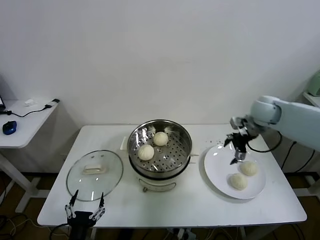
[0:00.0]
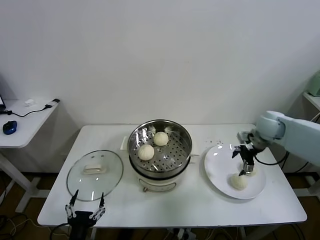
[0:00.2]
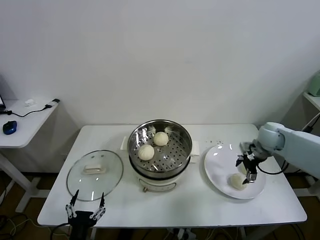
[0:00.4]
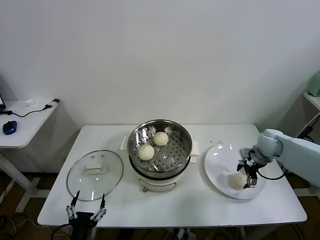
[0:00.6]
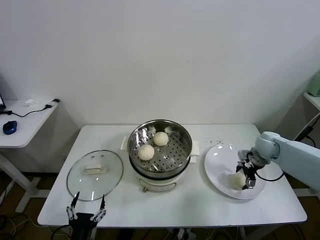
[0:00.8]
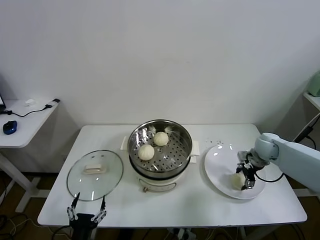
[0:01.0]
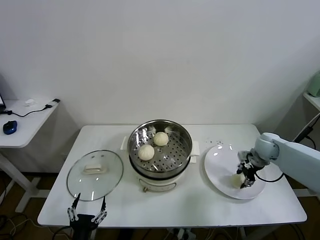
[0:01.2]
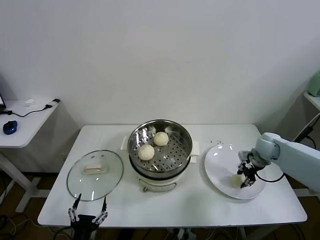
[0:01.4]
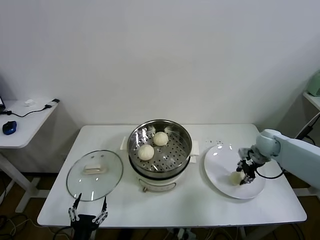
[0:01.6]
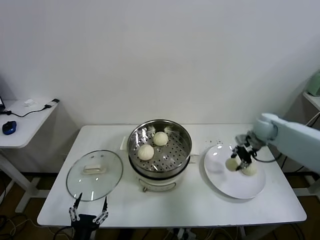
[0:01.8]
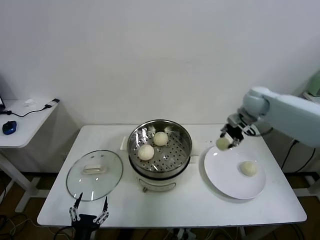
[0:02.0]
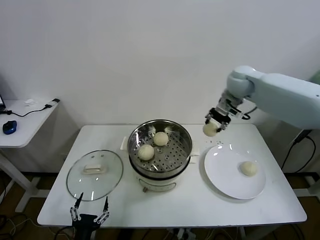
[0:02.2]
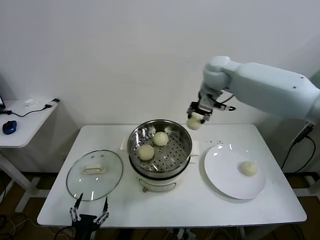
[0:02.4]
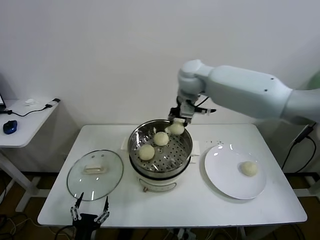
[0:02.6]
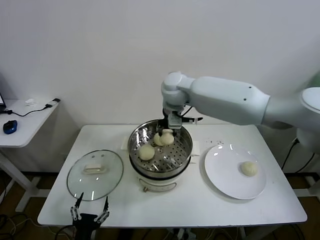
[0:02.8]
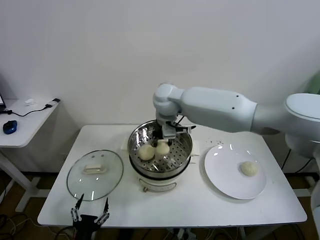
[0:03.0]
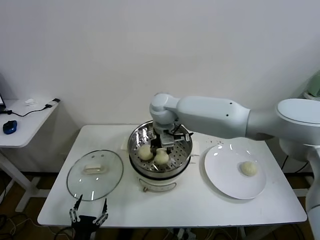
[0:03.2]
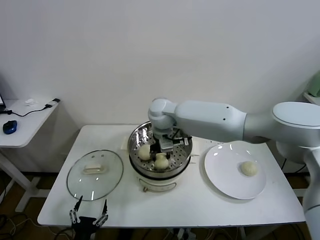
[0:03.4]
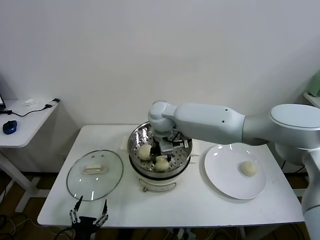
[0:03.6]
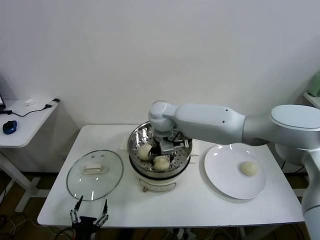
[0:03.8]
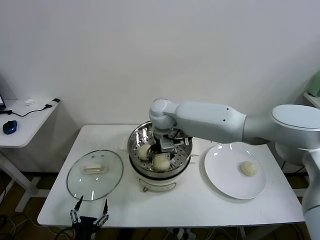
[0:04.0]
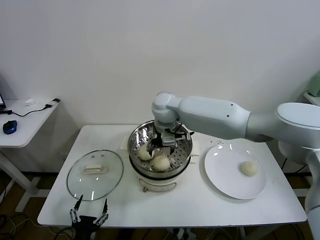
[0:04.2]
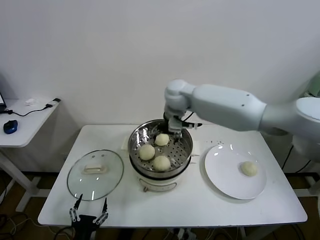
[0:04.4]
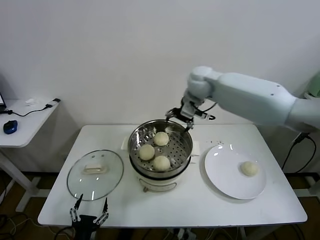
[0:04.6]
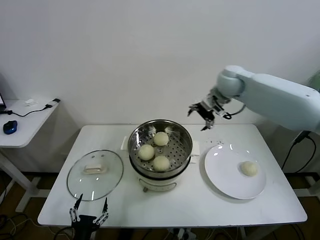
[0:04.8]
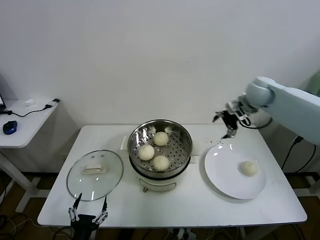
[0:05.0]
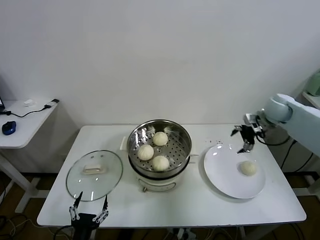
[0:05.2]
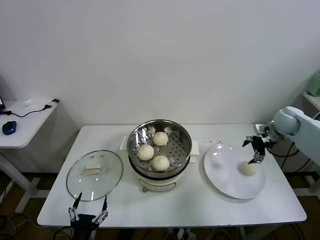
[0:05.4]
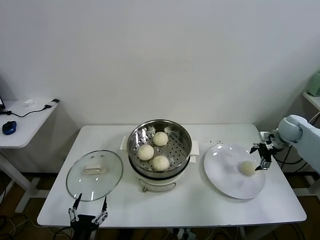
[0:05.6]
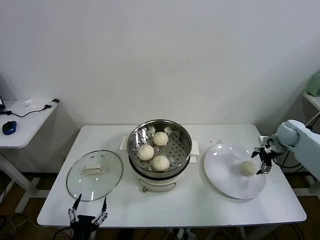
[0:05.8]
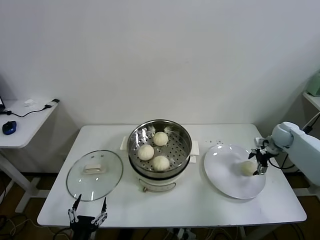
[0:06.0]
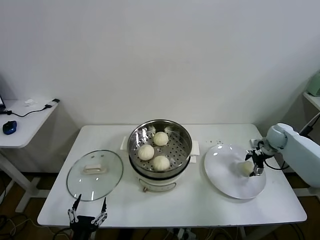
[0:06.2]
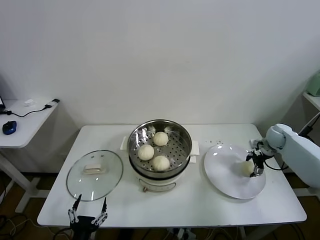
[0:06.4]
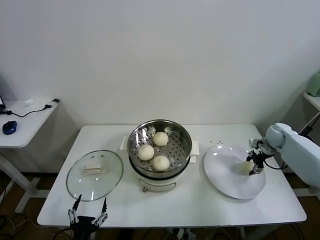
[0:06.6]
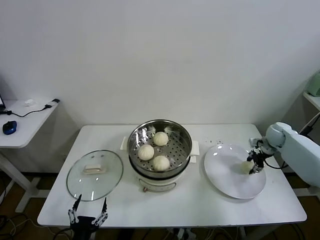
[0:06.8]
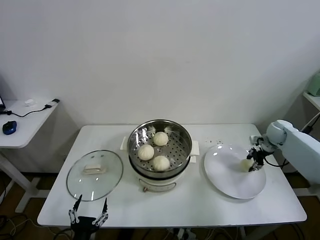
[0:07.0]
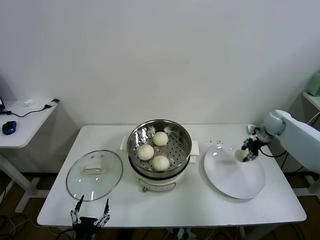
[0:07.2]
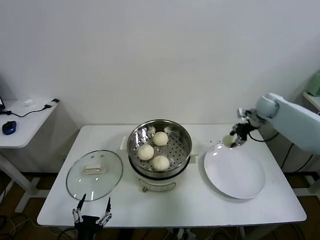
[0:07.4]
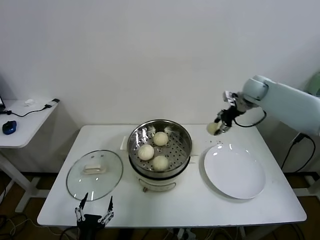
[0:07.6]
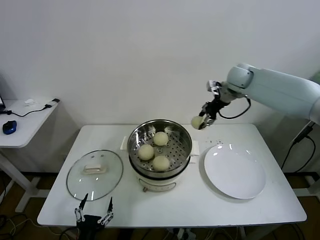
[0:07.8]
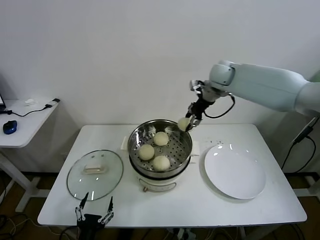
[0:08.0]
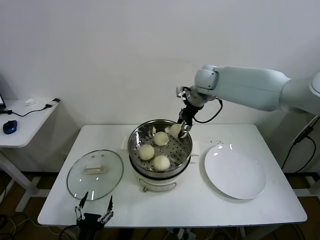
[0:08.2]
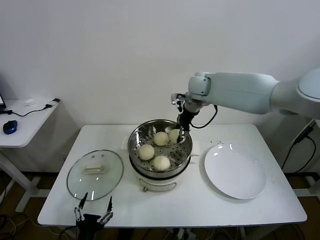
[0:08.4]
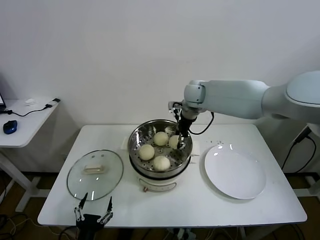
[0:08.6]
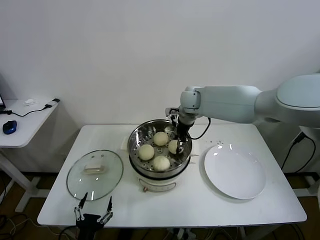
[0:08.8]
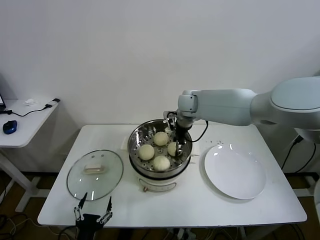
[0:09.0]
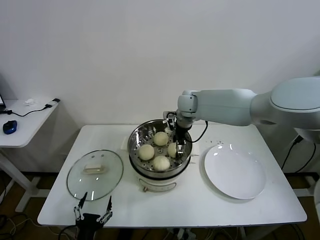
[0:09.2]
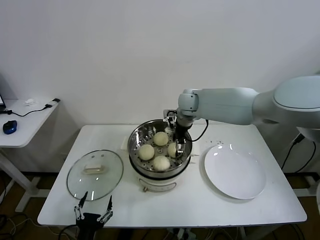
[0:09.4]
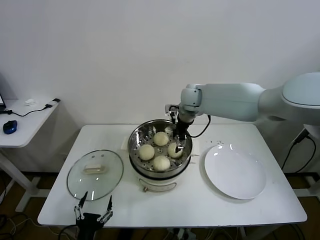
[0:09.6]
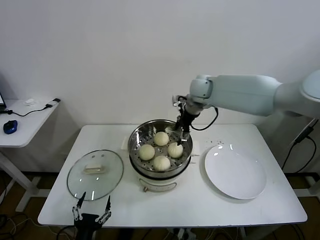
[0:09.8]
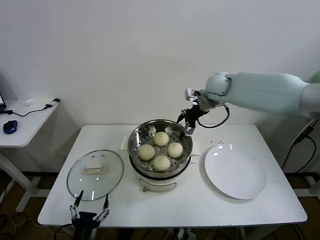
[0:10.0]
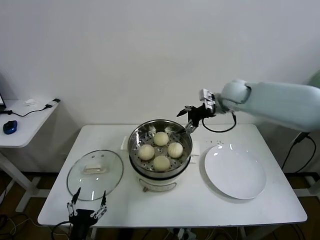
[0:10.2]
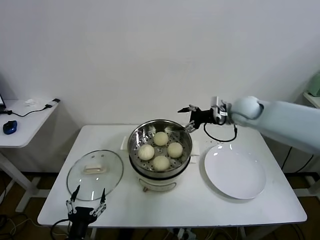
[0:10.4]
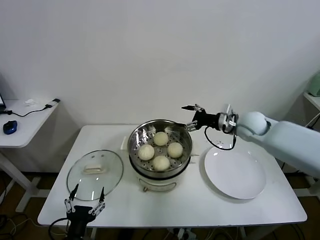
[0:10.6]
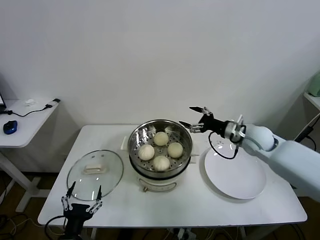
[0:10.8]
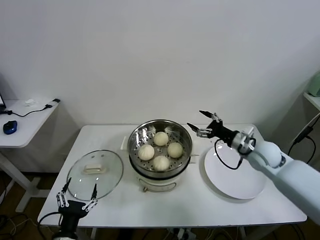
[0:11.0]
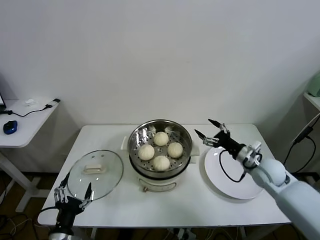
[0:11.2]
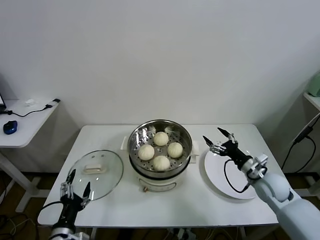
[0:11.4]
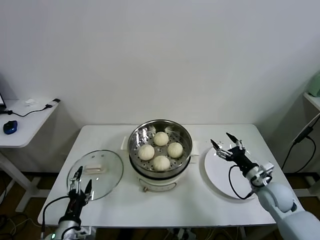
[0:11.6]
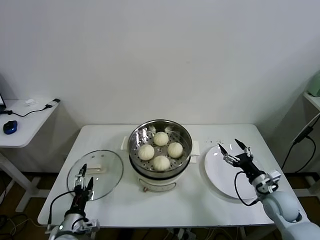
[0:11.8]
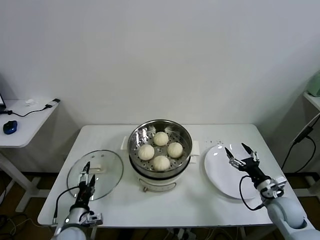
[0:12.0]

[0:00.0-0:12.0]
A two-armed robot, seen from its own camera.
Task of the whole recording: take steamed baozi put them in steamer.
Step, 0:00.0 to 0:01.2: Grasp the baozi in the plate with right gripper.
Step, 0:01.4 to 0:04.2: Place the baozi on the steamer with right gripper.
Step, 0:04.4 to 0:06.8: Grasp the baozi in the plate with right gripper.
Step, 0:07.0 to 0:09.4: Place the baozi on the steamer with right gripper.
0:00.0 to 0:01.6: The right gripper goes about 10 cm downward, and closes up.
0:01.6 to 0:03.0: The right gripper is displaced to the left and upward by roughly 40 cm.
0:03.0 to 0:04.4: The right gripper ends up roughly 5 cm from where it was, and opens.
0:04.4 to 0:06.0: The right gripper moves to the right and downward, roughly 50 cm.
0:06.0 to 0:07.6: The right gripper moves upward, to the left and forward, about 25 cm, and closes up.
0:07.6 to 0:09.0: The right gripper is displaced to the left by about 25 cm.
0:09.0 to 0:10.4: The right gripper goes roughly 20 cm to the right, and opens.
0:10.4 to 0:12.0: The right gripper shifts some 35 cm downward, backward and to the right. The left gripper heads forward and downward, covering about 10 cm.

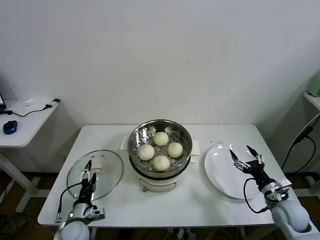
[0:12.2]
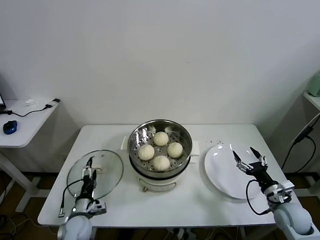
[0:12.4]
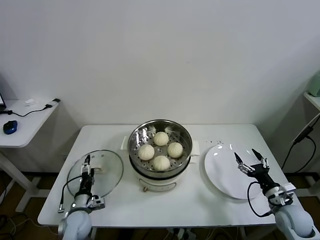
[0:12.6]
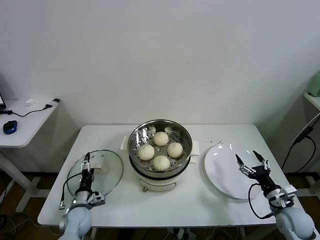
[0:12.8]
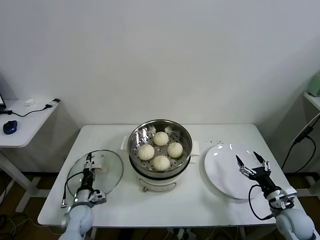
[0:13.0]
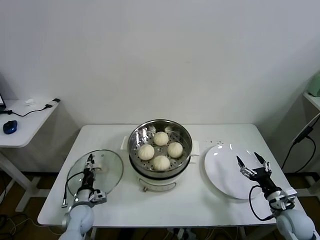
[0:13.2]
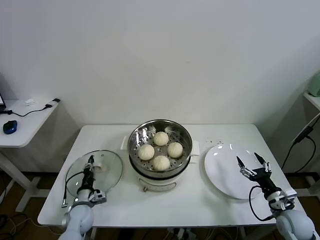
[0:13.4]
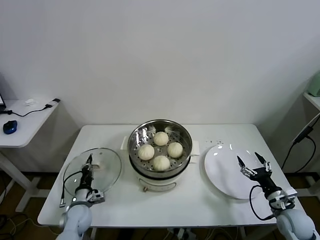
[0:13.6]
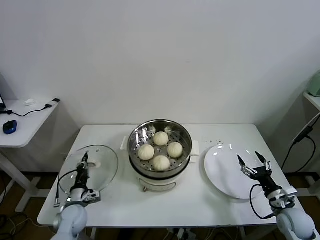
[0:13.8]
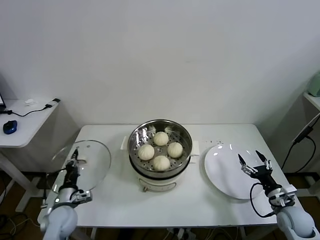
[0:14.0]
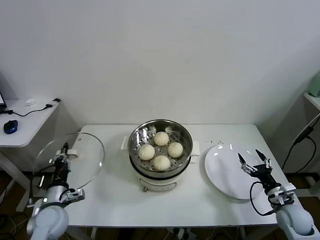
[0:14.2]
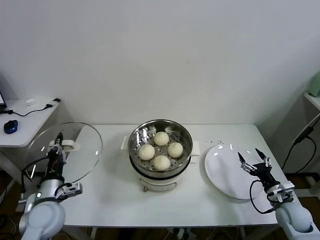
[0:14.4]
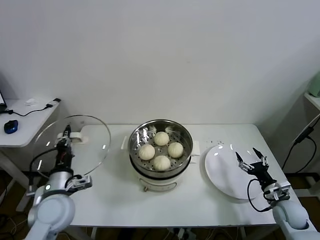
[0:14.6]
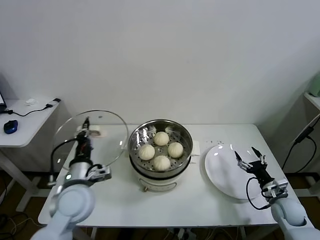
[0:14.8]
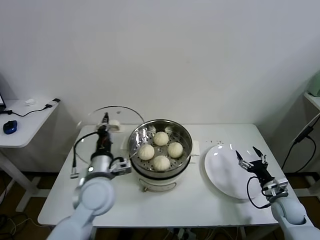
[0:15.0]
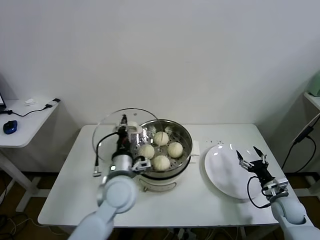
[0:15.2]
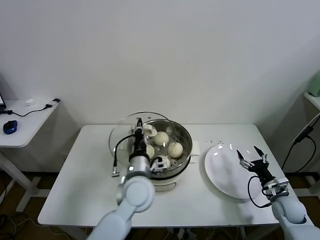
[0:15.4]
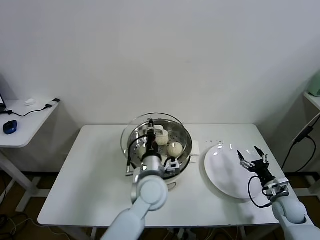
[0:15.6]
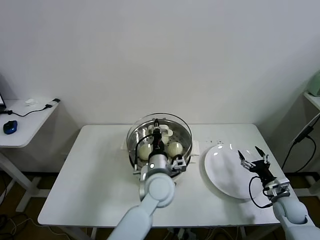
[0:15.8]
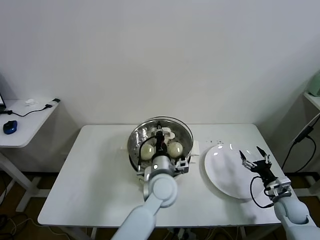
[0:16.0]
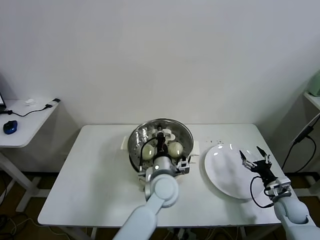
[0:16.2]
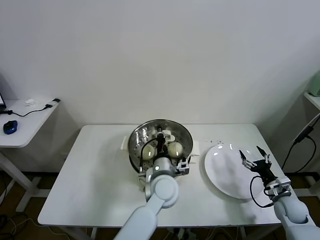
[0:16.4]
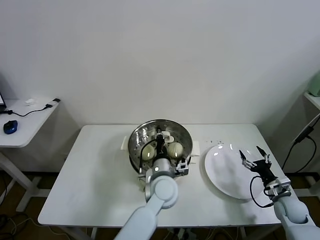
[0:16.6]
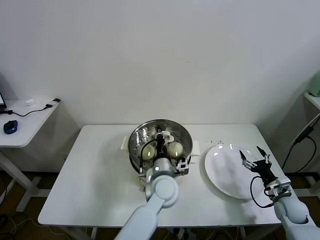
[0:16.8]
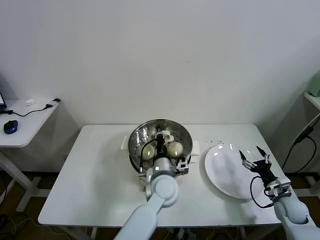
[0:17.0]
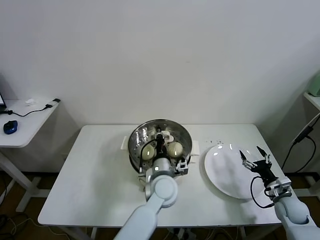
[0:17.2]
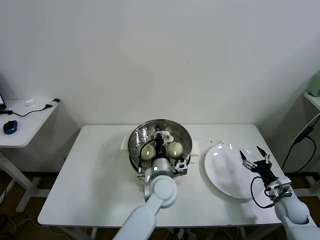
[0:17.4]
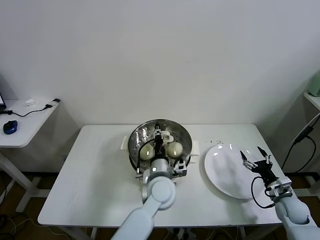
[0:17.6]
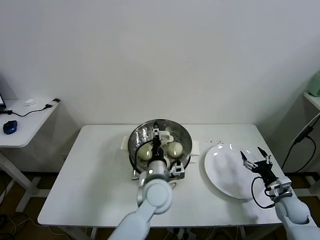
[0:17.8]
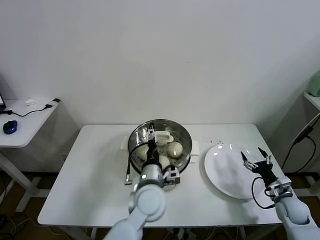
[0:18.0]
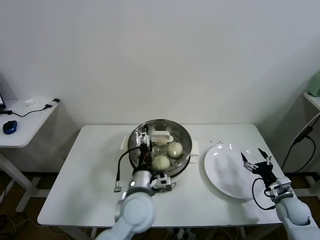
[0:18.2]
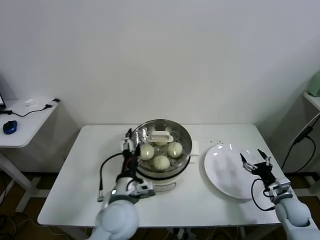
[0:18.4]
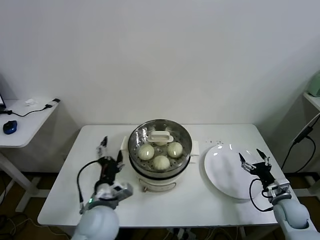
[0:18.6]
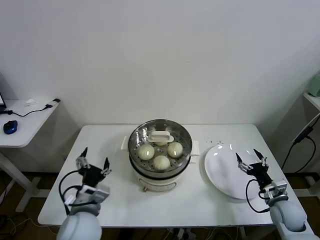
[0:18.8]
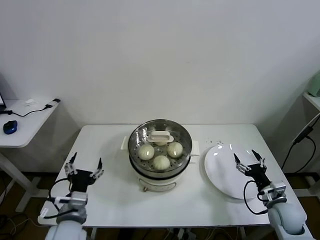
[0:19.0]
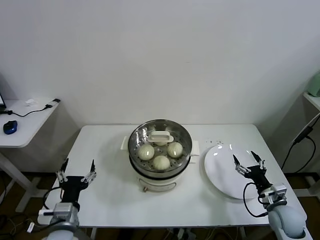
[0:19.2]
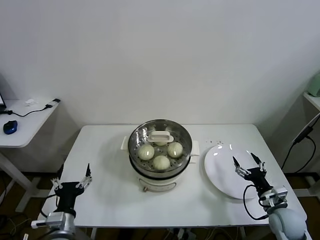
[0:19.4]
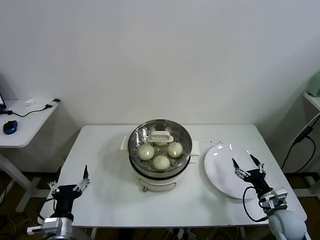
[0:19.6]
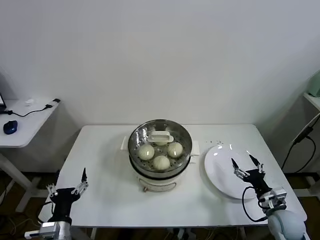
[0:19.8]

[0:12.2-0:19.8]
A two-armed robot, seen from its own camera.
Task of the whole recording: take steamed baozi put them in steamer.
Step, 0:13.8 to 0:17.8: Place the pot lid on the steamer with left gripper.
0:12.2 to 0:13.8: The left gripper shifts approximately 5 cm forward, and closes.
0:13.8 to 0:15.2: The right gripper ends up approximately 5 cm from where it was; the left gripper shifts approximately 30 cm upward and to the right.
0:15.2 to 0:16.8: The left gripper travels to the right and downward by roughly 15 cm.
0:16.8 to 0:18.2: The left gripper heads backward and to the left, covering approximately 10 cm, and opens.
0:18.2 to 0:19.8: The right gripper heads to the left, covering approximately 5 cm. Meanwhile the left gripper is displaced to the left and backward by some 25 cm.

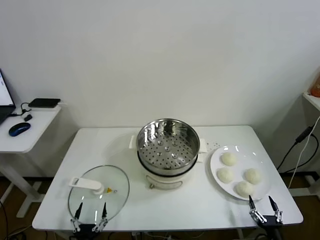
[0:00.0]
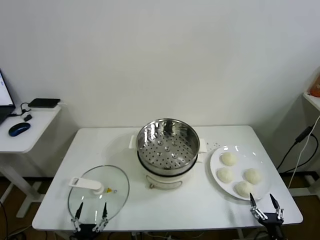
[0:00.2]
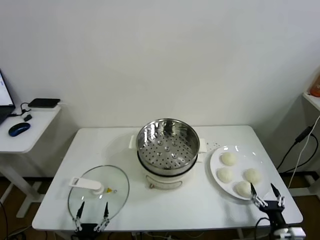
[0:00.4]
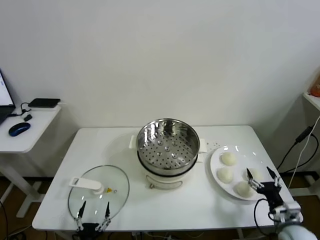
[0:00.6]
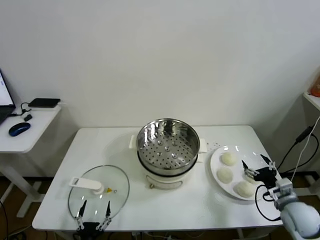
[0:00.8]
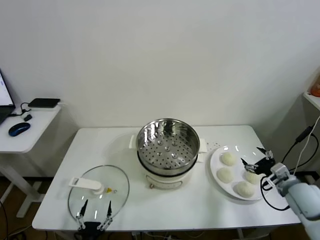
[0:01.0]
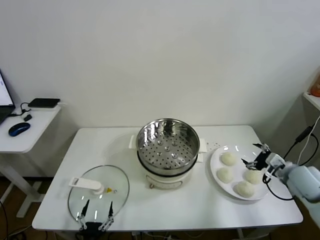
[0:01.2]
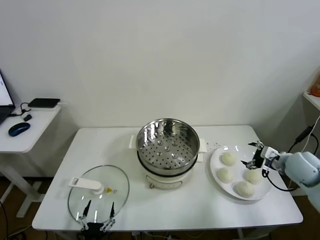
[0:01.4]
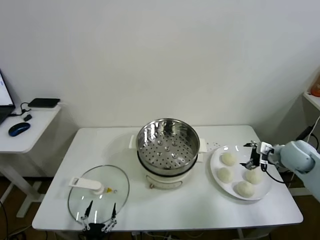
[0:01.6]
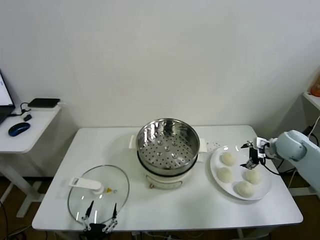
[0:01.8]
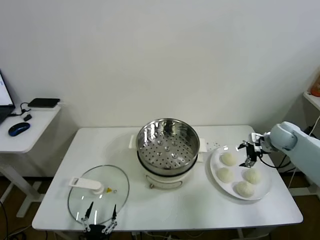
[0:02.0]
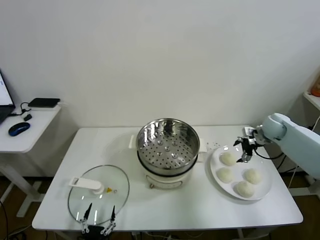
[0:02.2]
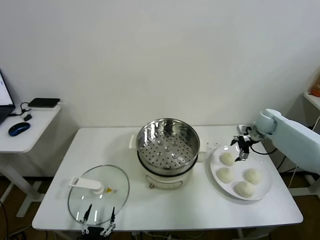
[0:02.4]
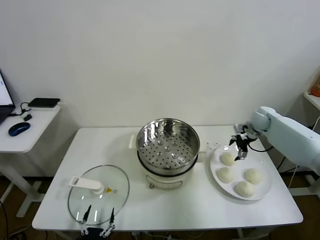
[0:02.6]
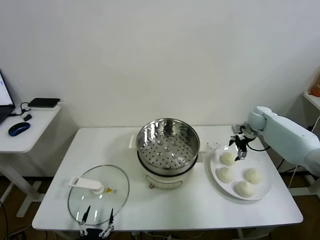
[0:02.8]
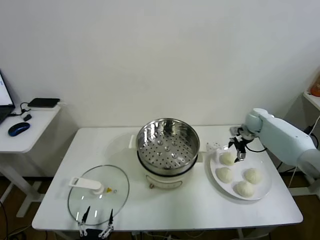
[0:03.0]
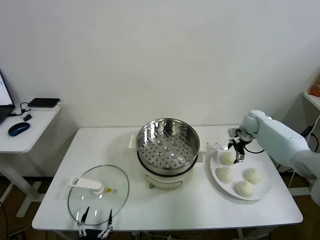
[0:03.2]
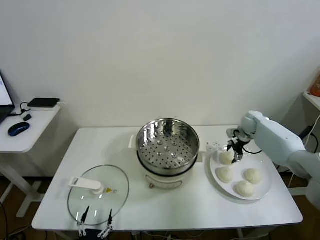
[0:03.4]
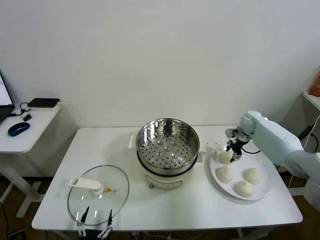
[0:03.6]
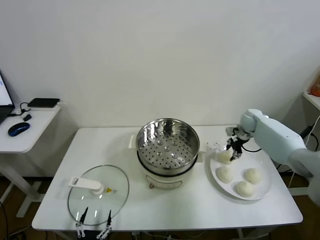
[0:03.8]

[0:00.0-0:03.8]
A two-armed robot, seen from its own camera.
Task of the whole recording: take steamed baozi put them in steamer.
Step, 0:00.0 to 0:03.6: Grasp the baozi in the plate with right gripper.
0:01.2 to 0:02.6: The right gripper shifts about 25 cm forward.
0:02.6 to 0:03.8: The right gripper closes its fingers.
